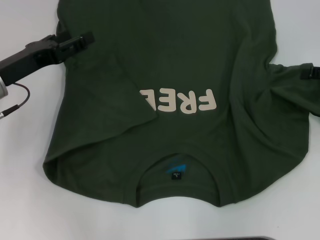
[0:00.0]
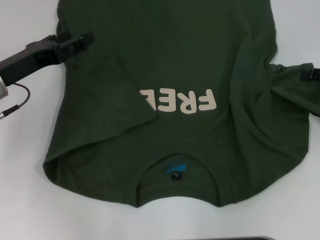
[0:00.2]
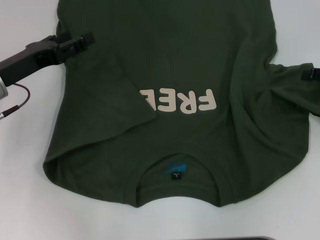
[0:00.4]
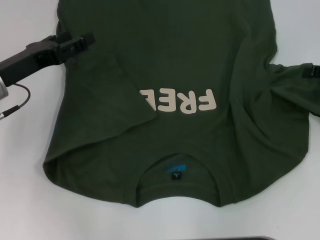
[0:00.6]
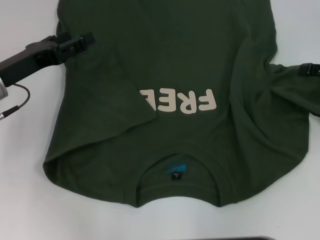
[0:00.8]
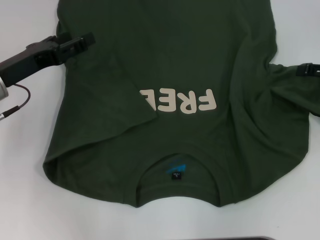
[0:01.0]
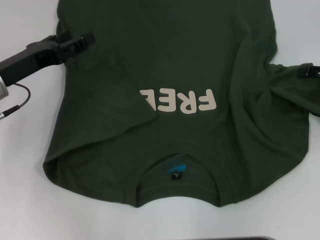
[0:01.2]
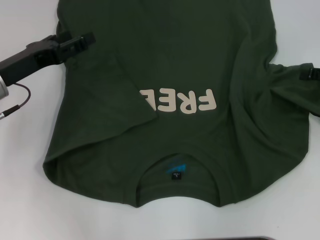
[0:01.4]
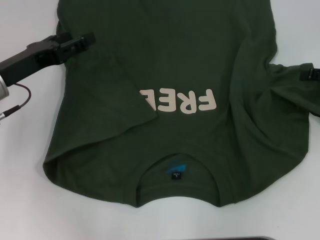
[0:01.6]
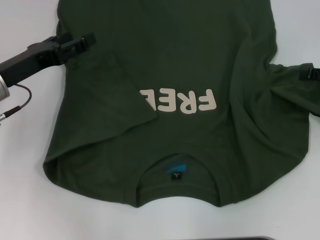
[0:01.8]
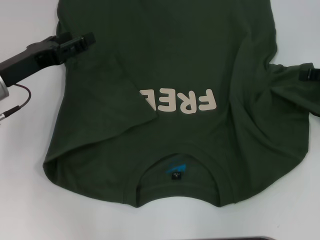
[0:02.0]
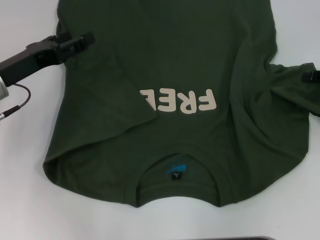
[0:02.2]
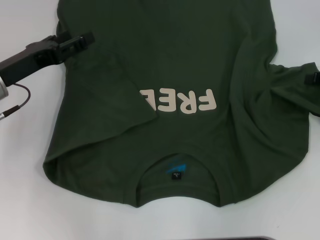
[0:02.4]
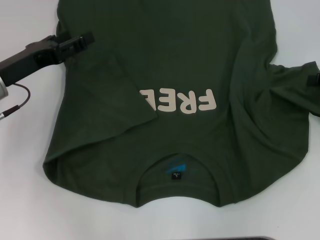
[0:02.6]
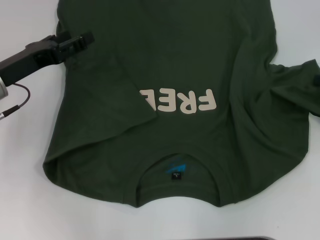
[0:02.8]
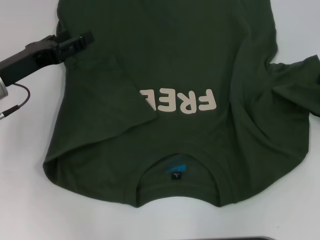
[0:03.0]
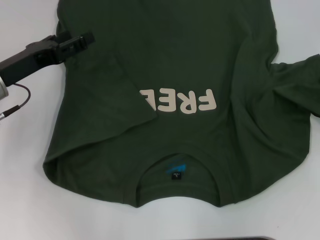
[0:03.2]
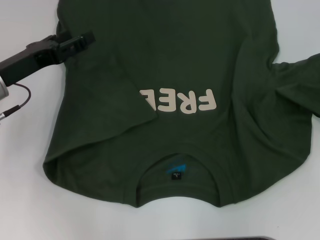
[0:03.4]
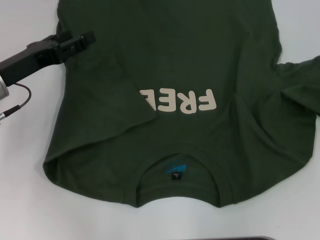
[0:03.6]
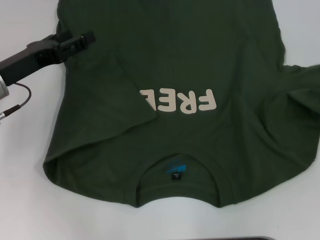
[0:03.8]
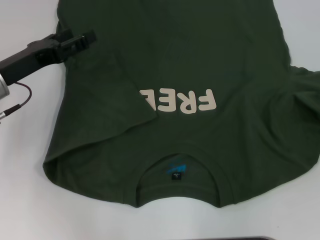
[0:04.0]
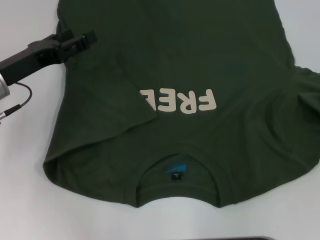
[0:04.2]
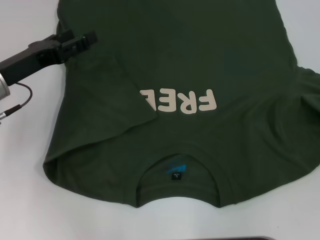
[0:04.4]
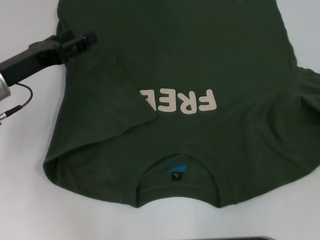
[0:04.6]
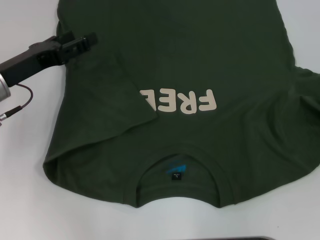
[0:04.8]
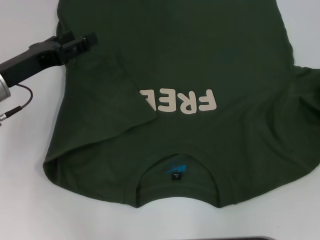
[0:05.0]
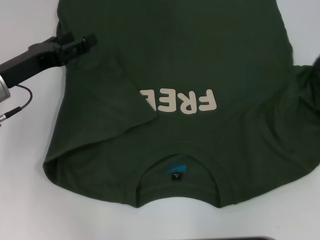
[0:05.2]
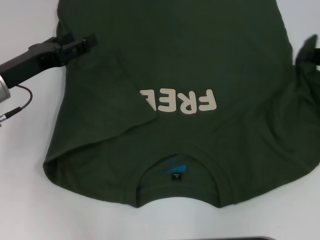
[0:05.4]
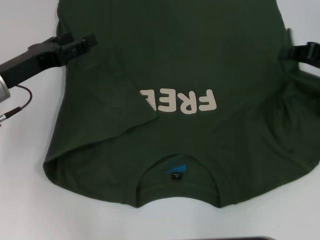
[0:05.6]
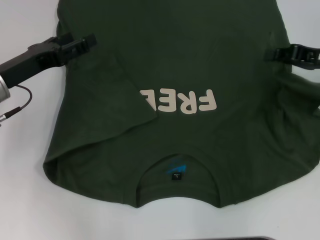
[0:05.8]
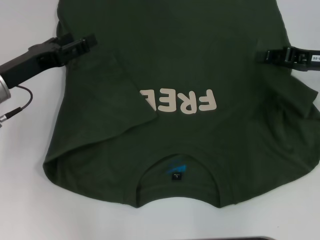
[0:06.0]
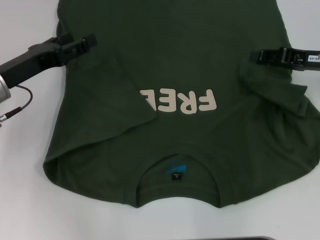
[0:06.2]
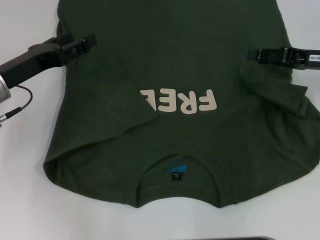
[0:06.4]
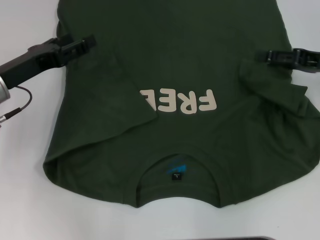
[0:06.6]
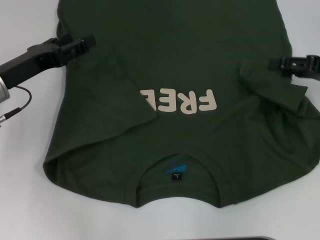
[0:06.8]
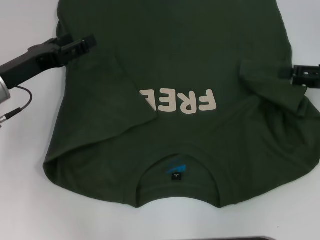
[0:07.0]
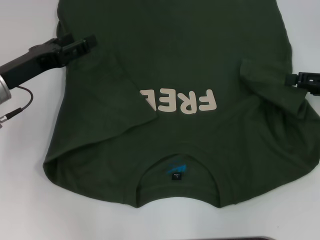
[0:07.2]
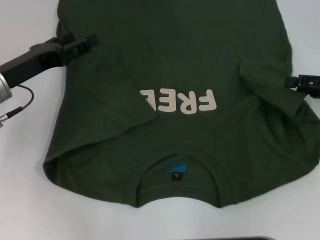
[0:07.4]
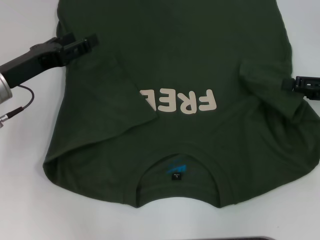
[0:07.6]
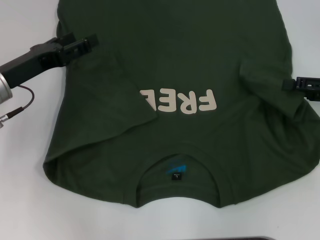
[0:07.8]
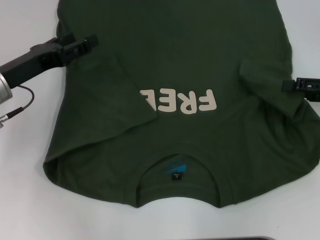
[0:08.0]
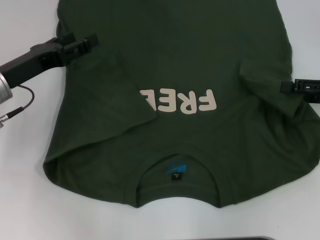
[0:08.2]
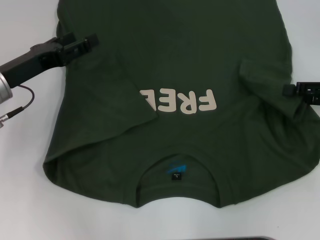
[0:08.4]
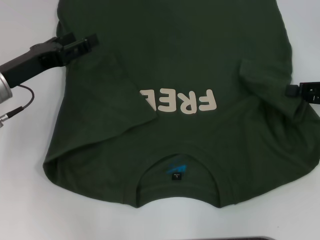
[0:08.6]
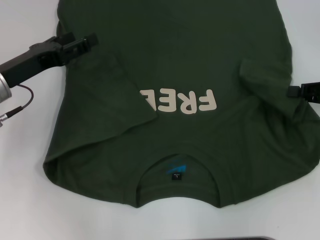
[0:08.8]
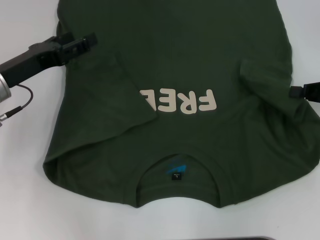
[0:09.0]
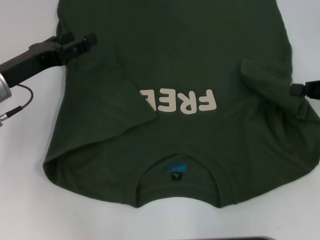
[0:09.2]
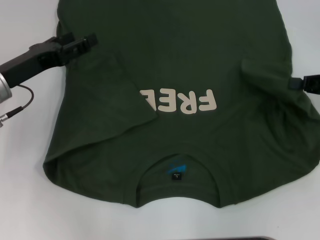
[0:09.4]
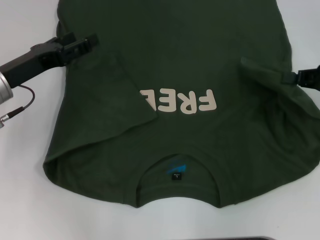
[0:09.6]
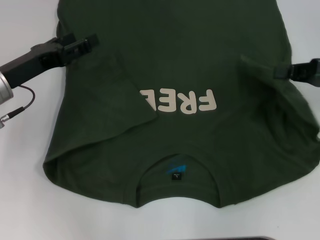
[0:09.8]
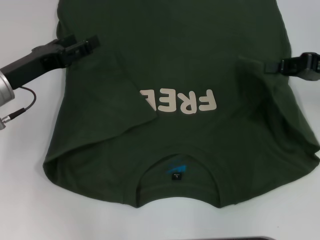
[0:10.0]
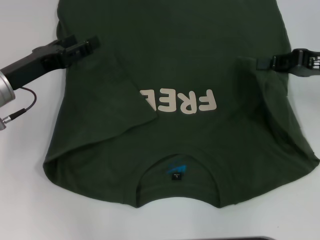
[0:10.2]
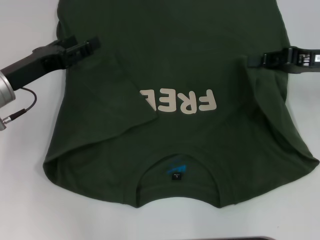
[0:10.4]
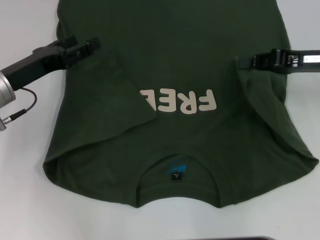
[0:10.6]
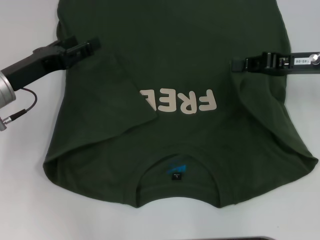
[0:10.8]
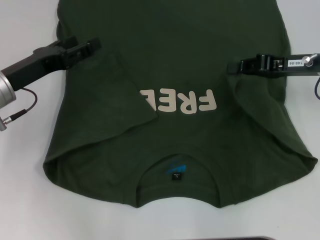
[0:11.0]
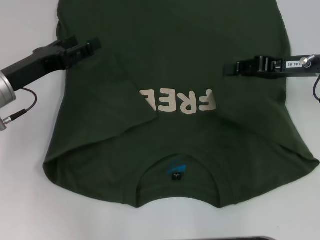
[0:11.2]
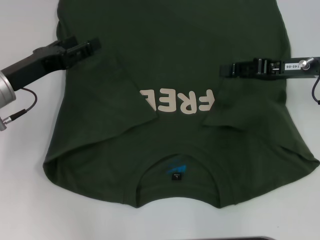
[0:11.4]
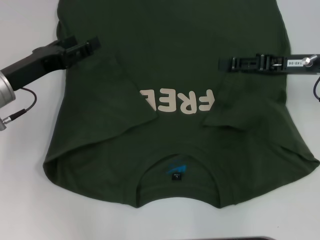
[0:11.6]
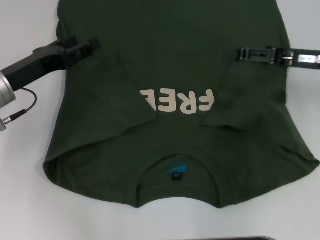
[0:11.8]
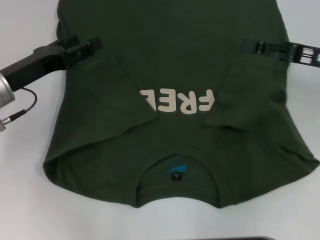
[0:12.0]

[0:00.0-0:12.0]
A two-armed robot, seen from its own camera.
Step, 0:00.0 to 0:11.8: Fold the bottom right sleeve with your right hand.
0:00.0 to 0:01.6: The two grippers keep their place.
0:03.0 to 0:04.4: The right gripper moves about 5 cm.
0:04.4 to 0:06.0: The right gripper goes roughly 15 cm to the left and forward.
0:06.0 to 0:07.6: The right gripper moves backward and to the right, roughly 5 cm, and opens its fingers.
0:09.0 to 0:10.4: The right gripper heads to the left, covering some 5 cm.
0:10.4 to 0:12.0: The right gripper opens its fingers.

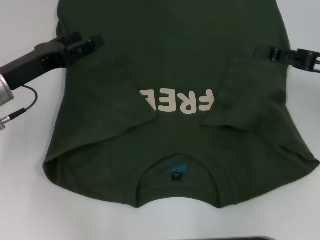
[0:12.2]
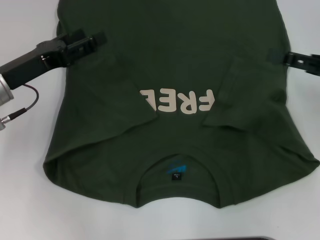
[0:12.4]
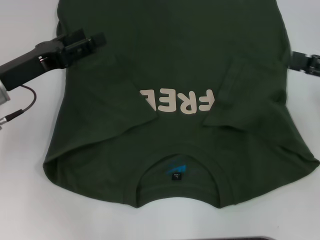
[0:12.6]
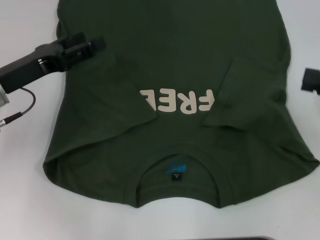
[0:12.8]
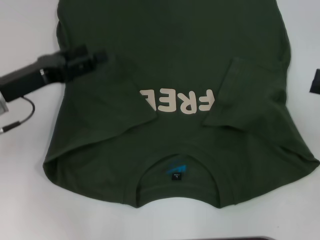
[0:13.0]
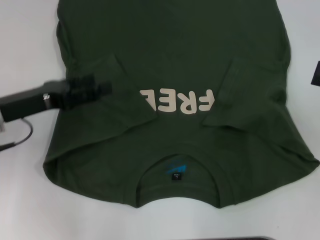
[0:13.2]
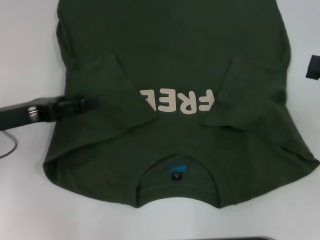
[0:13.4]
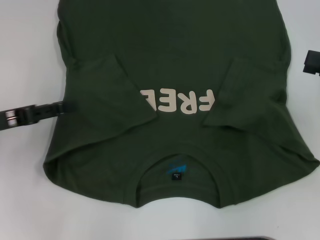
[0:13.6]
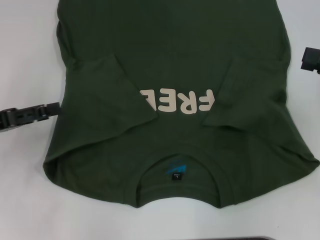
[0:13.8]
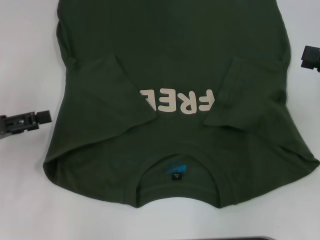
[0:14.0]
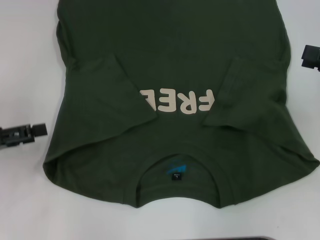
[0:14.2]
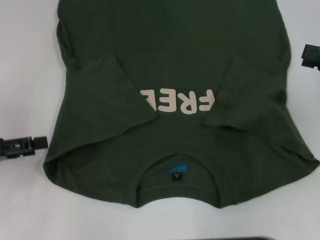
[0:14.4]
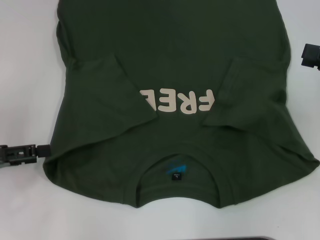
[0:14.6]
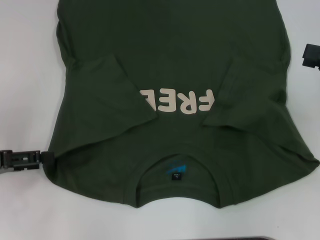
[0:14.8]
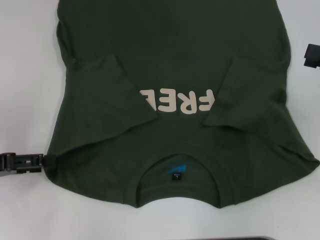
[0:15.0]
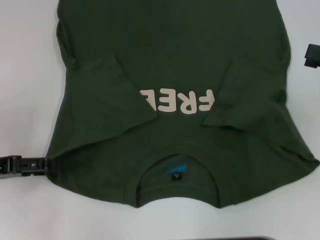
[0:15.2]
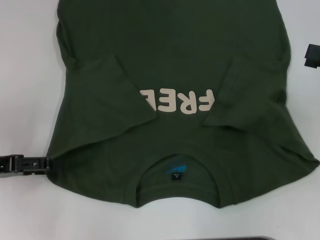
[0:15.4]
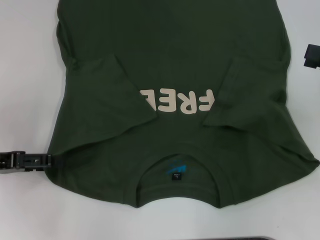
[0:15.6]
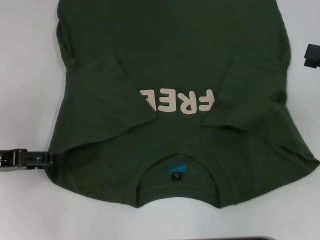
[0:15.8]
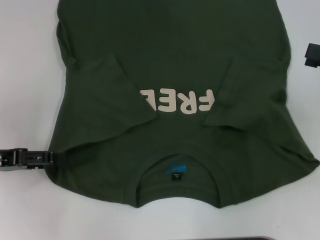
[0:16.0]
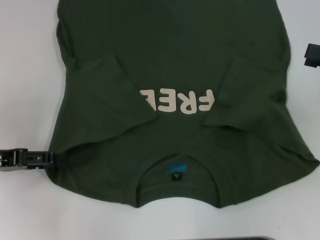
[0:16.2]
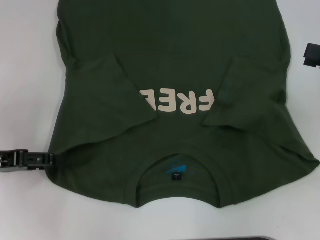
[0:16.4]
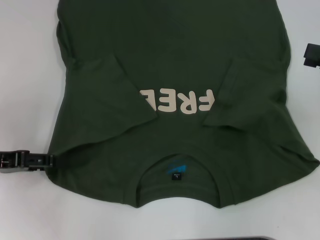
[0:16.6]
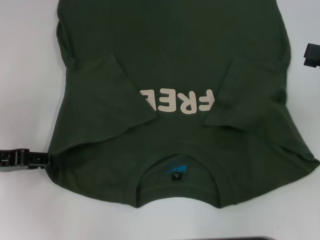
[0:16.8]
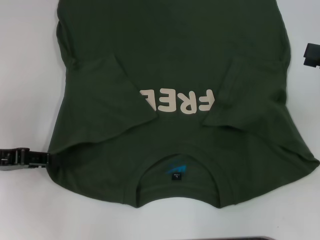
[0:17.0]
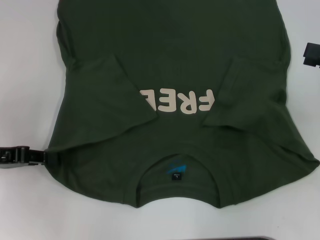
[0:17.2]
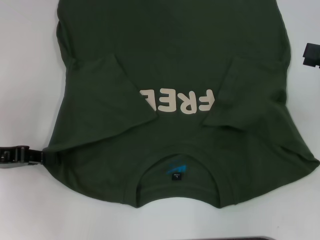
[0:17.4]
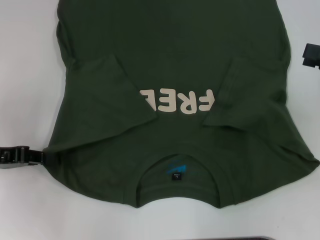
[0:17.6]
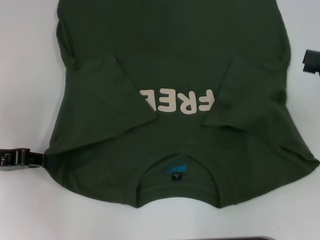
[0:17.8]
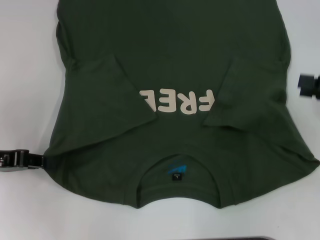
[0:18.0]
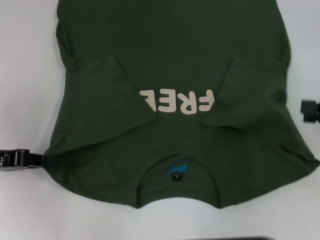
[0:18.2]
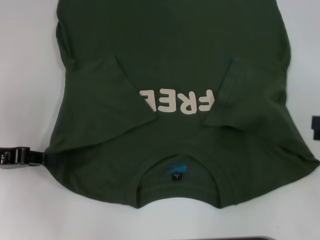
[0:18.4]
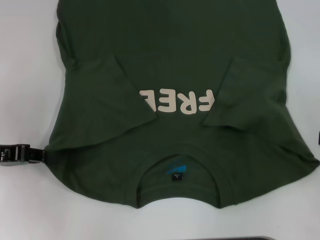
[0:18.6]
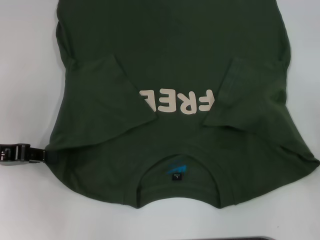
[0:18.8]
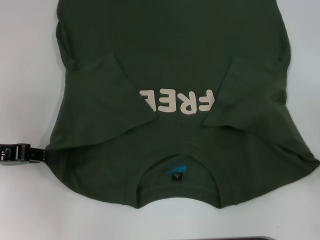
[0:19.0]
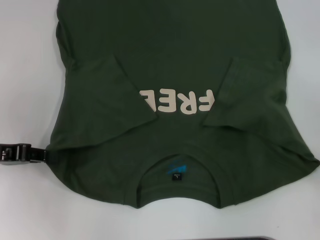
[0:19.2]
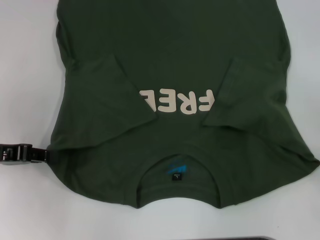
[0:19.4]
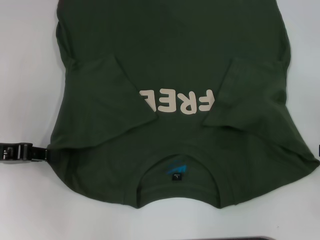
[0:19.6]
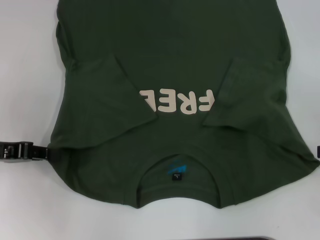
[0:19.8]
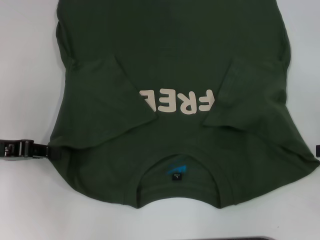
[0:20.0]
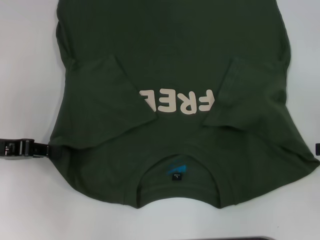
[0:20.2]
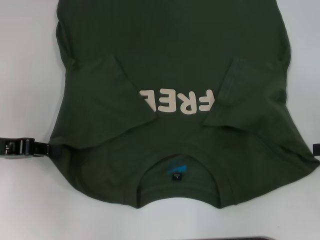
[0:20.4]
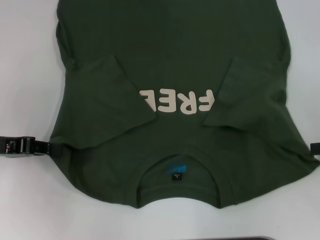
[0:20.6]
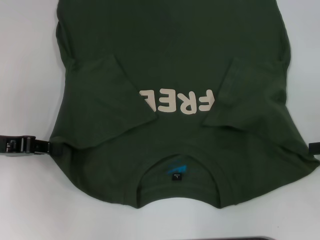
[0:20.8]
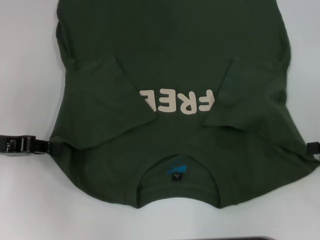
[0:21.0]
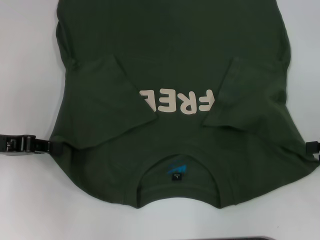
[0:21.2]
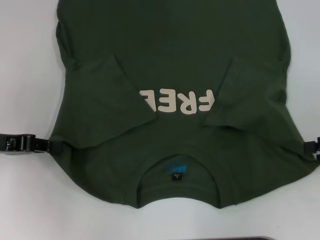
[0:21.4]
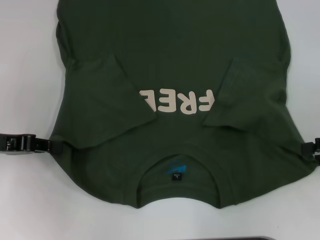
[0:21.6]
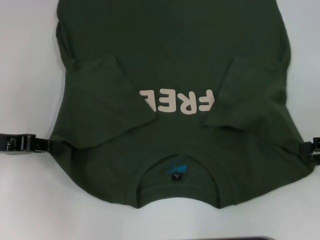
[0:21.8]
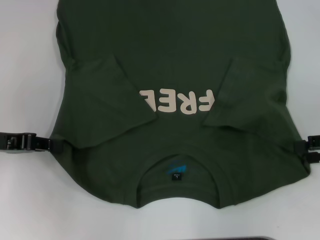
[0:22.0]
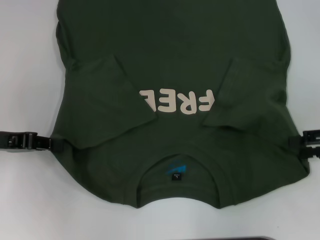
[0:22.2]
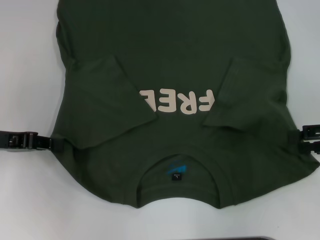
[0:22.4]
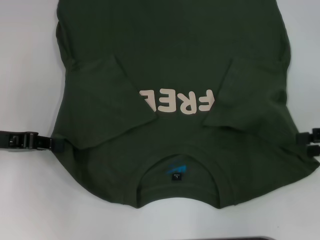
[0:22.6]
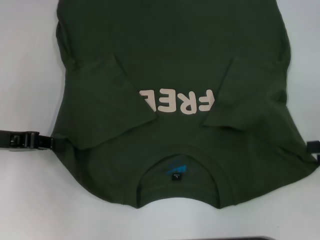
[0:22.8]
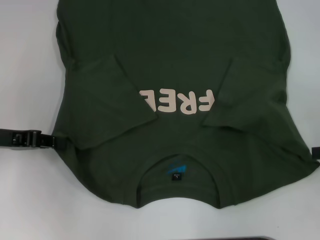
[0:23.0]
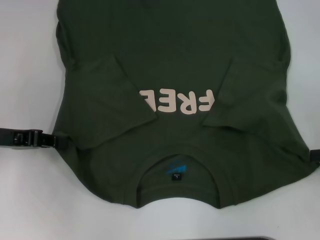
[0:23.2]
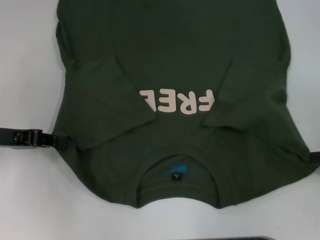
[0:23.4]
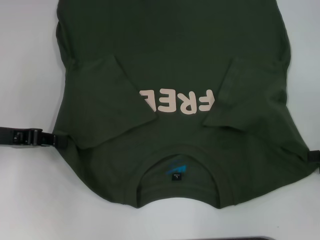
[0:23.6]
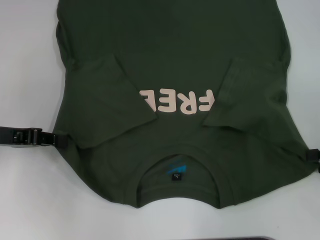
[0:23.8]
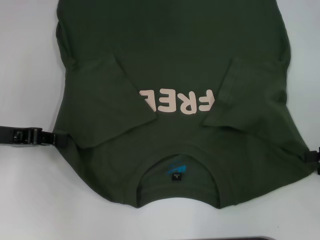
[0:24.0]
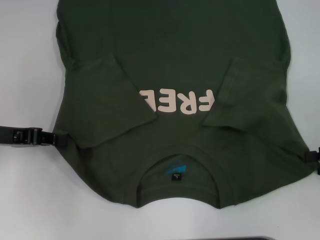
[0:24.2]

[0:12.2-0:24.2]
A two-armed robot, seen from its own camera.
Step, 0:12.2 to 0:18.6: Grab the bottom left corner with your left hand.
0:12.2 to 0:13.8: The right gripper heads to the right, covering about 5 cm; the left gripper shifts approximately 10 cm to the left and backward.
0:13.8 to 0:15.2: The grippers move only a little.
0:15.2 to 0:16.6: There are only small adjustments of the grippers.
0:16.6 to 0:18.2: The left gripper closes.
0:19.8 to 0:24.2: The grippers move only a little.
